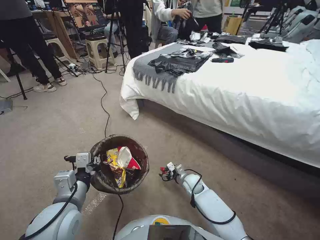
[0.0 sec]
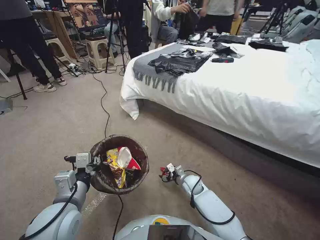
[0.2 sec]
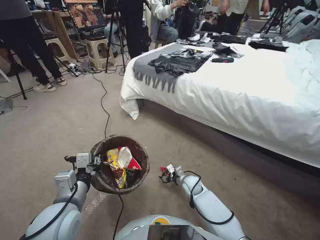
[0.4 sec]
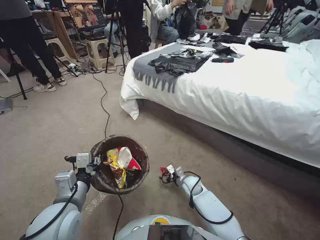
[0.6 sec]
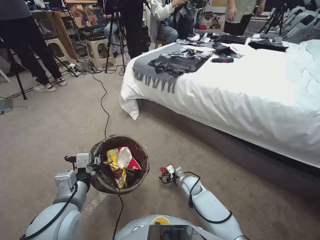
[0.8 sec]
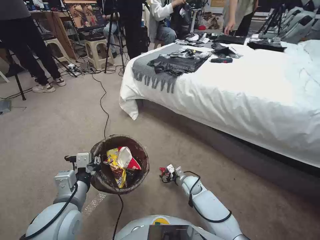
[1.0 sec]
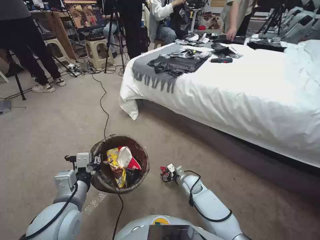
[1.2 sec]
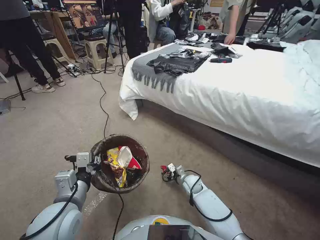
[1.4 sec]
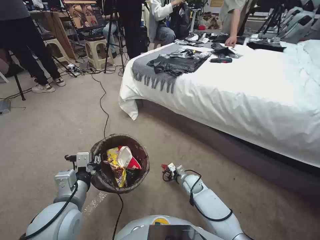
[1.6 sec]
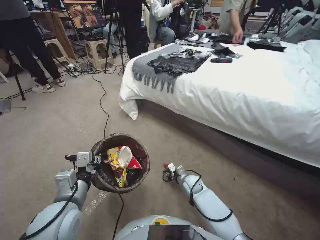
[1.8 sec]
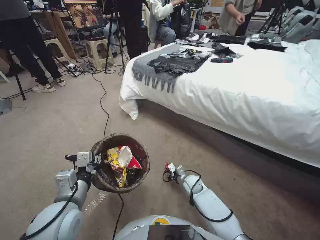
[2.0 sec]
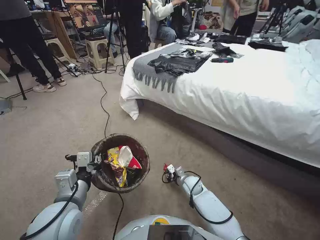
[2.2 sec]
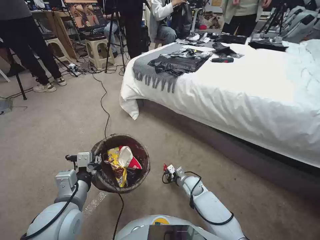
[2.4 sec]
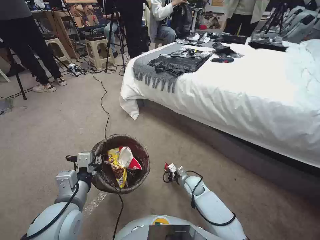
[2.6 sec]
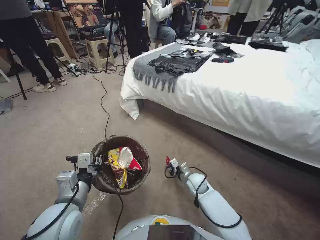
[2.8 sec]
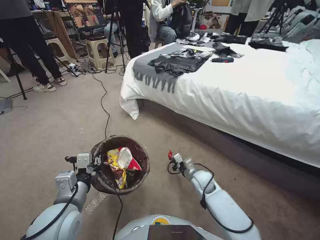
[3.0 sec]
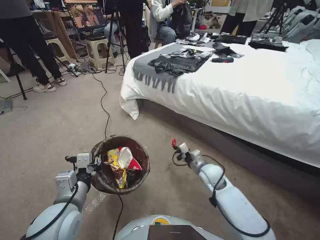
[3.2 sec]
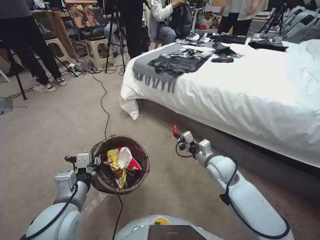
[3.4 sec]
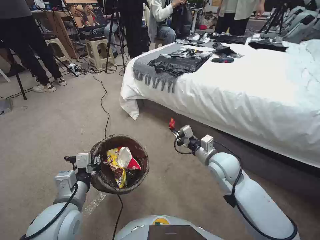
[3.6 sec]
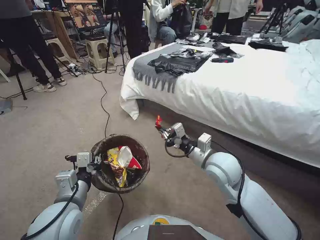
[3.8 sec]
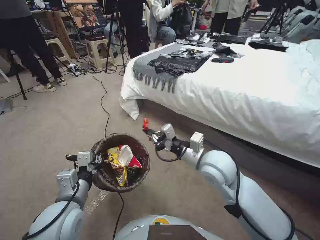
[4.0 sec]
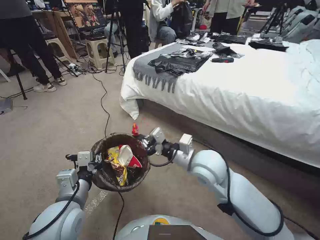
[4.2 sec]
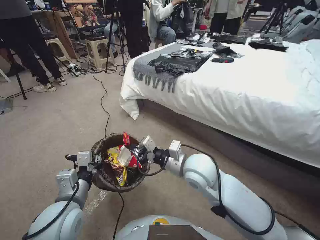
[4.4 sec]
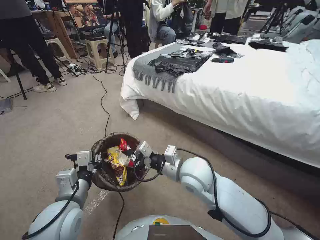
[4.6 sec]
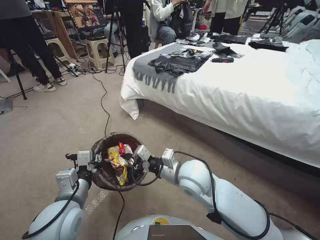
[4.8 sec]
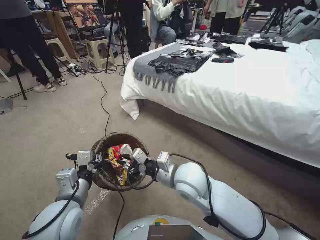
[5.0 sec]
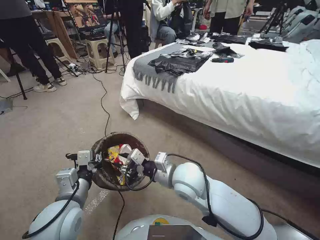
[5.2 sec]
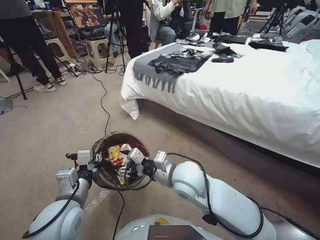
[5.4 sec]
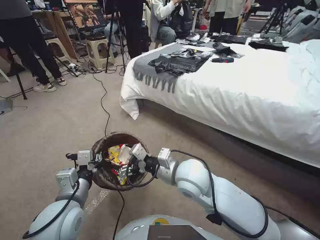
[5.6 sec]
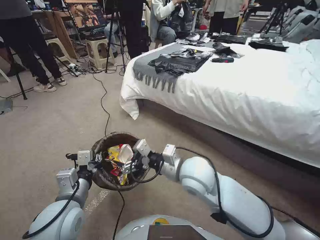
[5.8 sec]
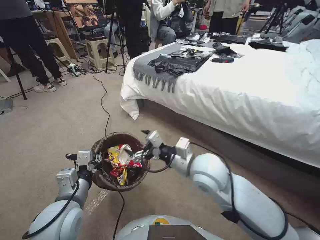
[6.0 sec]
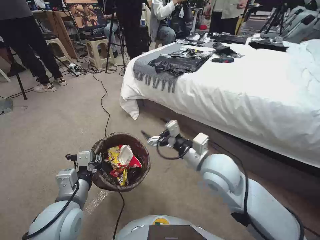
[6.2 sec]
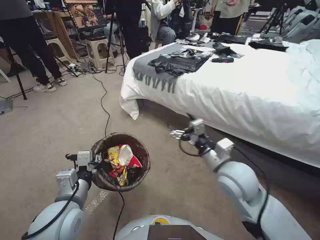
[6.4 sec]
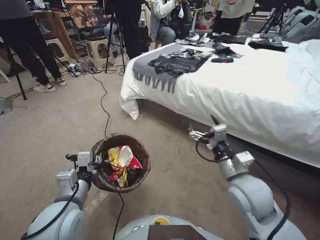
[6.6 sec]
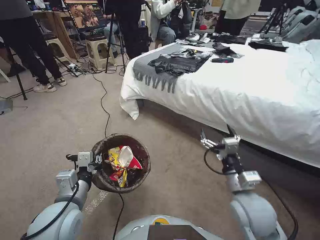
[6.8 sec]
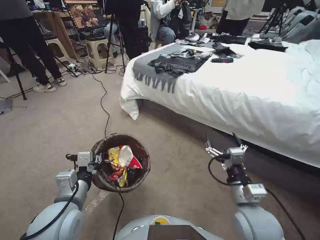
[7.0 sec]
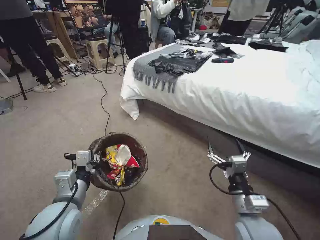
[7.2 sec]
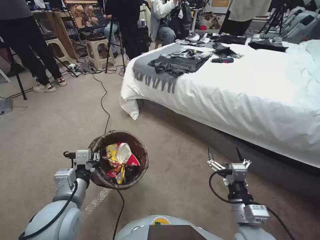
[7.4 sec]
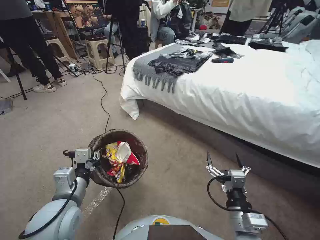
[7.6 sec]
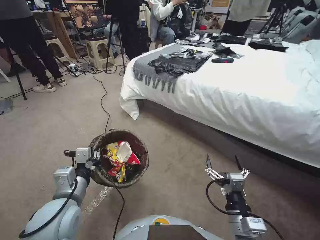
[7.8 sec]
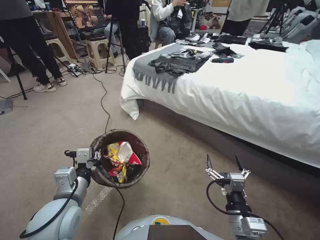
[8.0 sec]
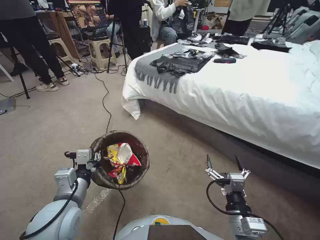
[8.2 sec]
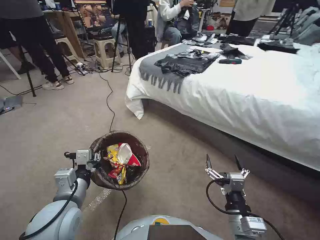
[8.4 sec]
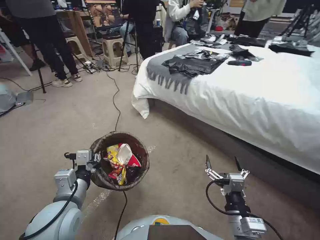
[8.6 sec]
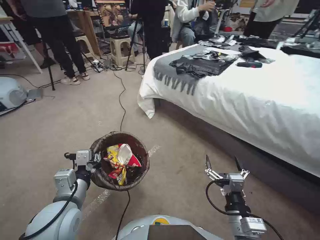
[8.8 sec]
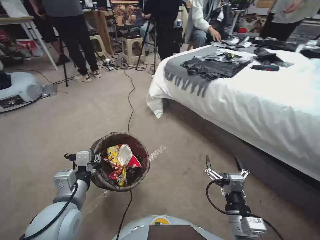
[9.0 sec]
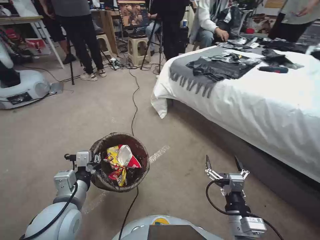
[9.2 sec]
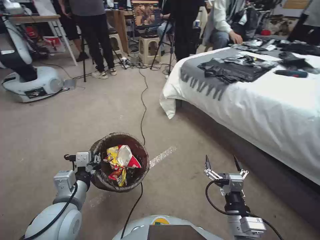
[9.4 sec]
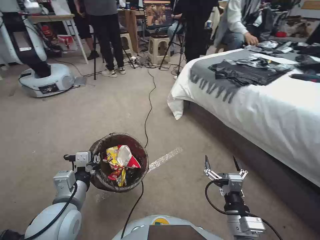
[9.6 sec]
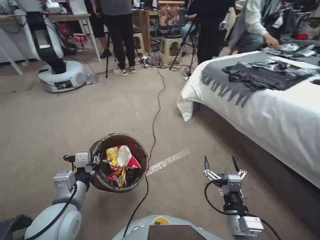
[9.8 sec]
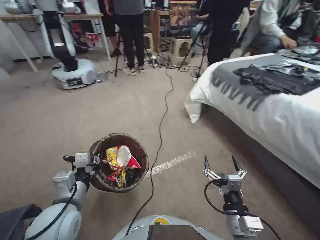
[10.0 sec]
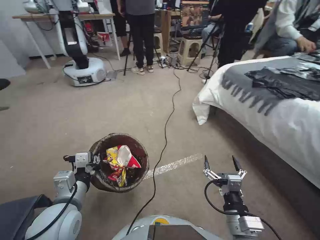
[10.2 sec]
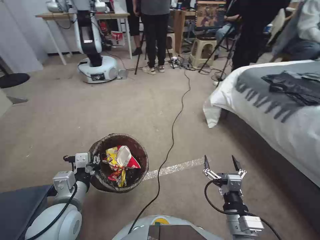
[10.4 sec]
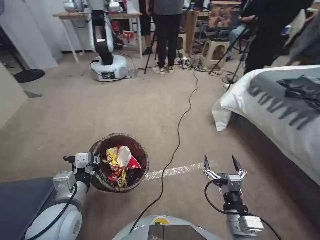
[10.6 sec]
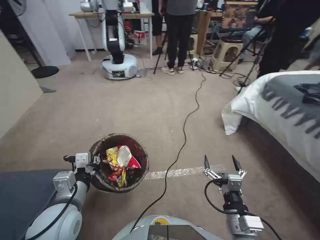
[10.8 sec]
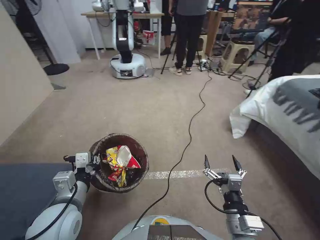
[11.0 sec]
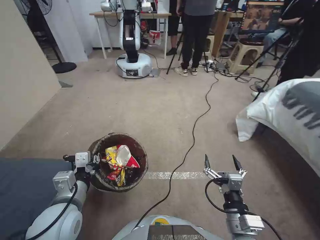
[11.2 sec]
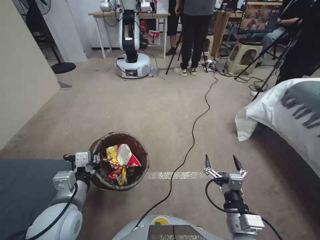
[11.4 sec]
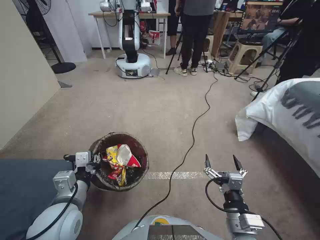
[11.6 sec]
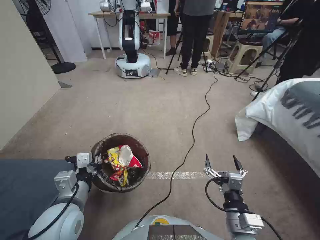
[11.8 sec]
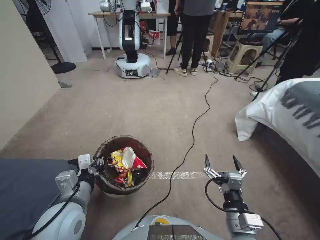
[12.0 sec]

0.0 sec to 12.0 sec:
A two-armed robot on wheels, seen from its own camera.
Task of the whole recording: Pick up the trash bin, then pick up the garbage from the floor and place it into the trash bin.
0.0 sec to 1.6 sec: The right gripper closes its fingers.
1.6 sec to 3.0 sec: The right gripper moves upward, about 5 cm, and closes up.
3.0 sec to 4.4 sec: The right gripper goes some 30 cm upward.
4.4 sec to 6.0 sec: The right gripper opens.
6.0 sec to 7.6 sec: The right gripper travels backward, to the right and downward by some 25 cm.

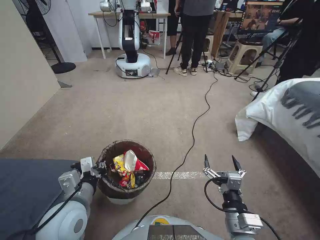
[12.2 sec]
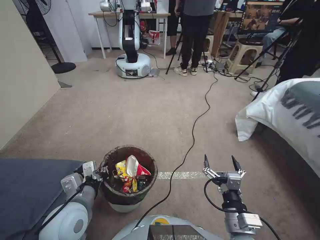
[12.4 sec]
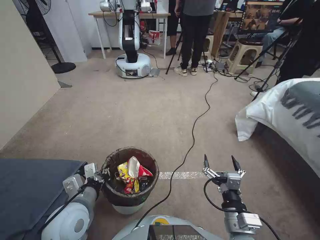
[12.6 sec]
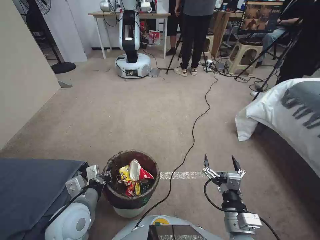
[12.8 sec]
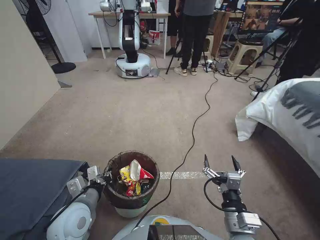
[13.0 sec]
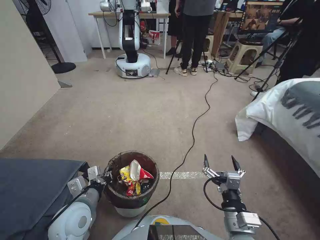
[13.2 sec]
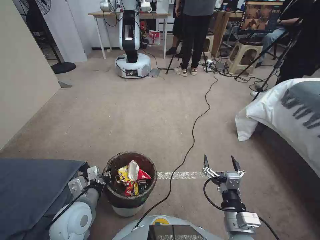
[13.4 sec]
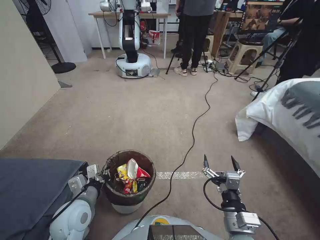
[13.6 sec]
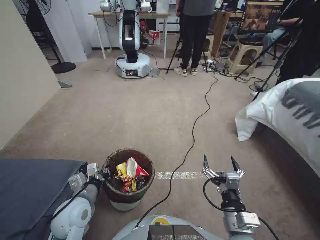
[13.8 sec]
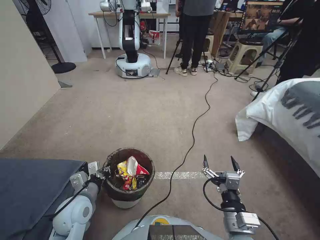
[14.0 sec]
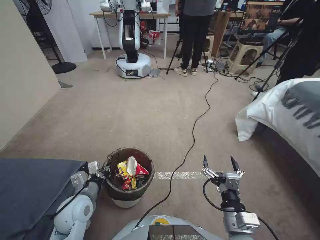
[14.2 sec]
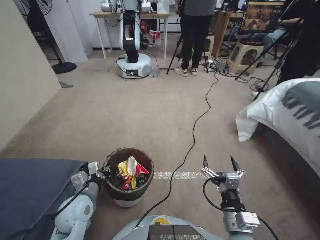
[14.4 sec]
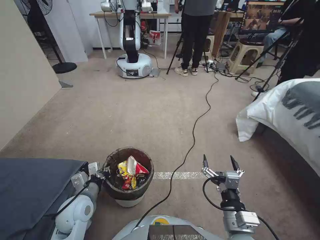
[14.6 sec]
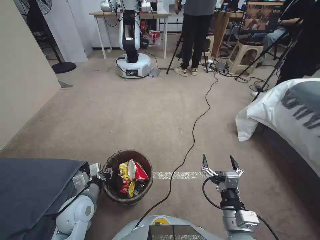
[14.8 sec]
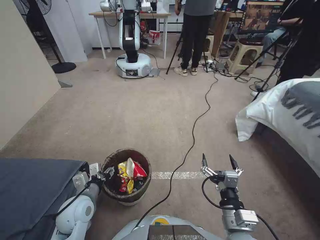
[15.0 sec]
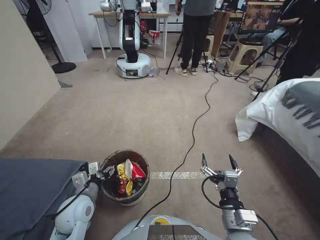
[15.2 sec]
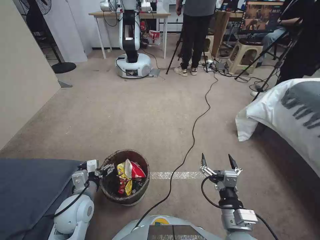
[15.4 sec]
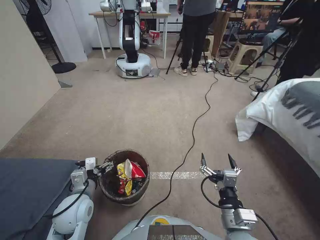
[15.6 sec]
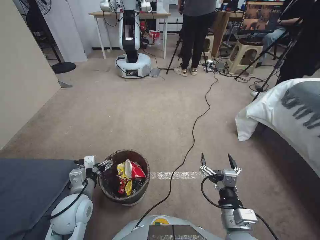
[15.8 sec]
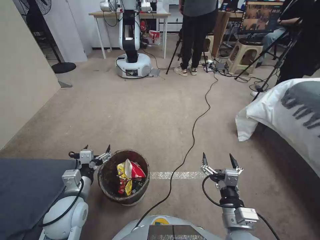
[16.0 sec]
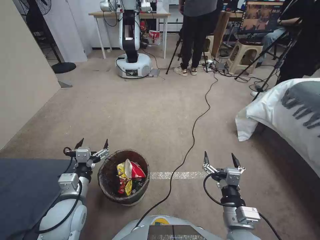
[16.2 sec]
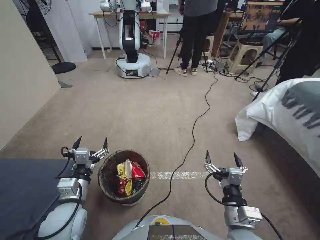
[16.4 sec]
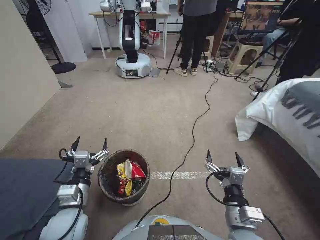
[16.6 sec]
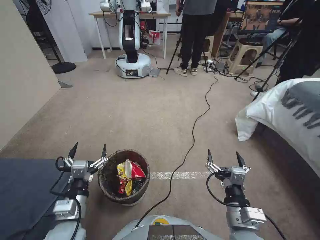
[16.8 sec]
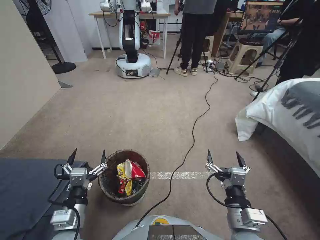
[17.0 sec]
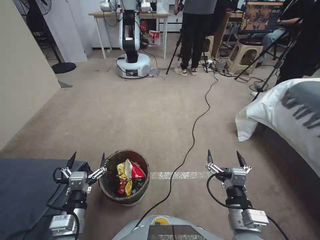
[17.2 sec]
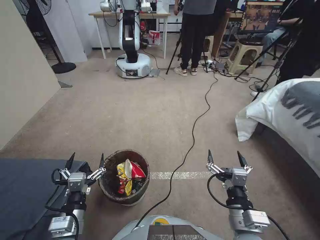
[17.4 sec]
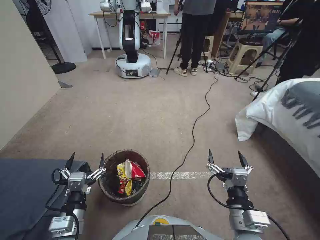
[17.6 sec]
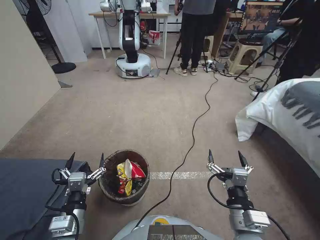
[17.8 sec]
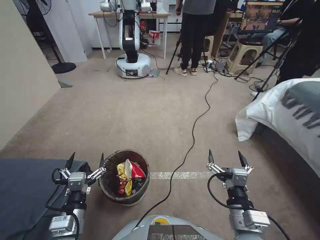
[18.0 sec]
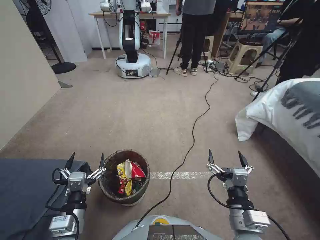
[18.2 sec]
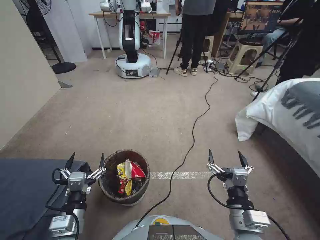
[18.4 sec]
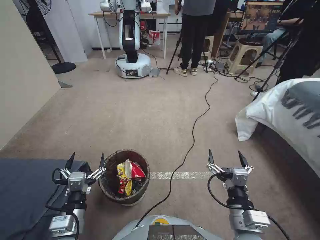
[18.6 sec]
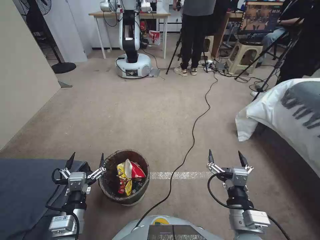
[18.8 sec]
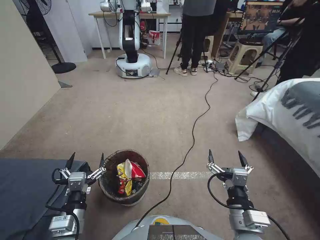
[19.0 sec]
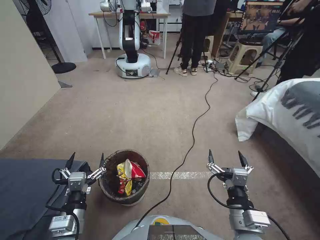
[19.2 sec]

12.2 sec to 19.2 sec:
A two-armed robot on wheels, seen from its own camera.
Task of the whole recording: Pick up the trash bin, then pick up the garbage from the floor and place it into the trash bin.
12.2 sec to 13.6 sec: The left gripper travels downward by roughly 5 cm.
13.6 sec to 15.0 sec: There are only small adjustments of the grippers.
15.0 sec to 16.4 sec: The left gripper moves upward, roughly 5 cm, and opens its fingers.
16.4 sec to 17.8 sec: The left gripper is displaced backward by approximately 10 cm.
17.8 sec to 19.2 sec: The two grippers keep their place.
